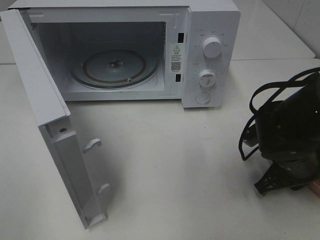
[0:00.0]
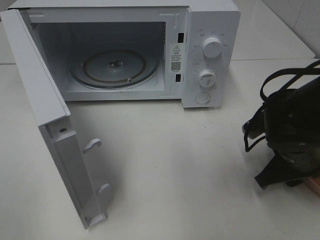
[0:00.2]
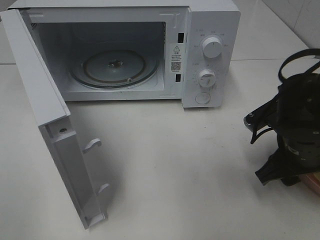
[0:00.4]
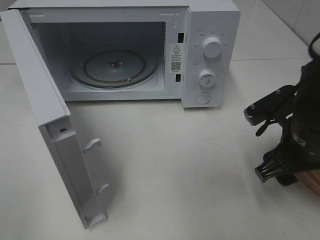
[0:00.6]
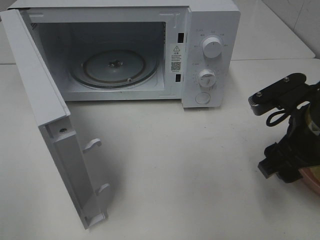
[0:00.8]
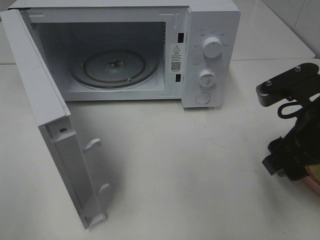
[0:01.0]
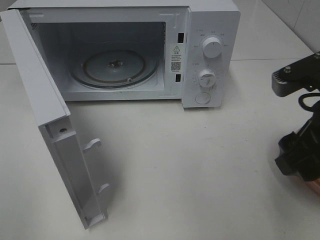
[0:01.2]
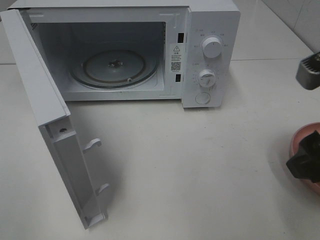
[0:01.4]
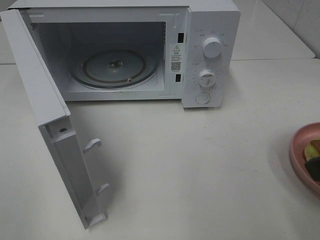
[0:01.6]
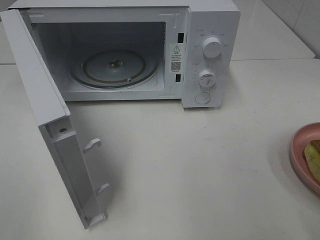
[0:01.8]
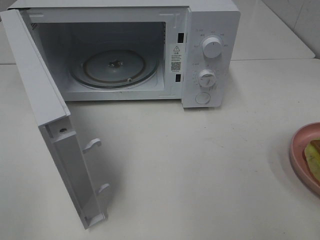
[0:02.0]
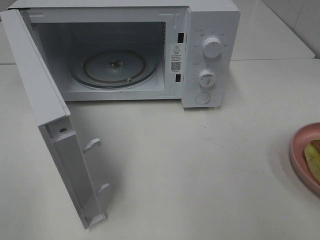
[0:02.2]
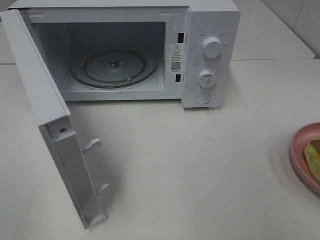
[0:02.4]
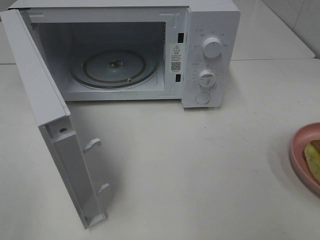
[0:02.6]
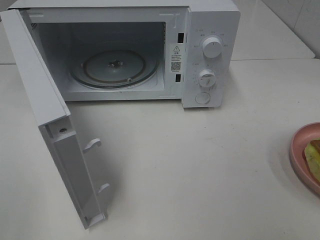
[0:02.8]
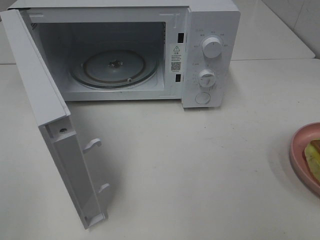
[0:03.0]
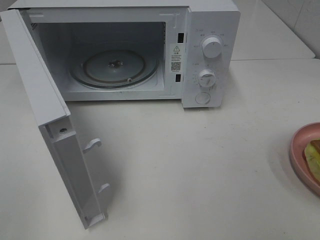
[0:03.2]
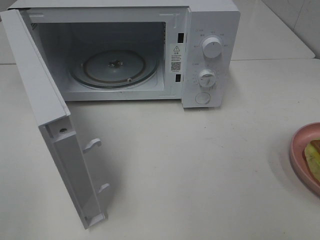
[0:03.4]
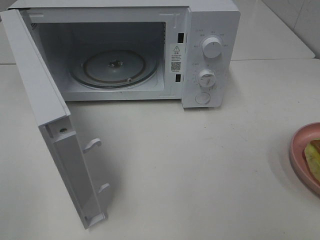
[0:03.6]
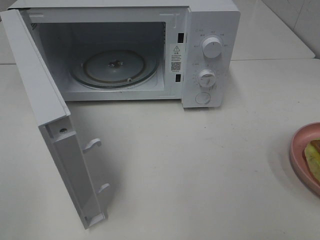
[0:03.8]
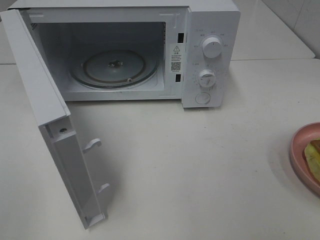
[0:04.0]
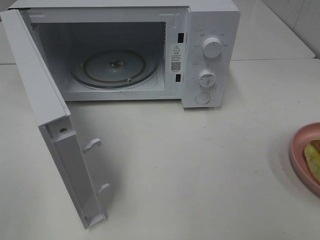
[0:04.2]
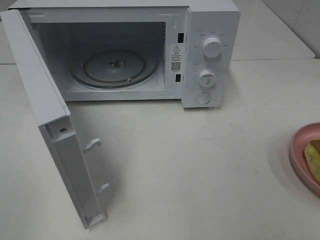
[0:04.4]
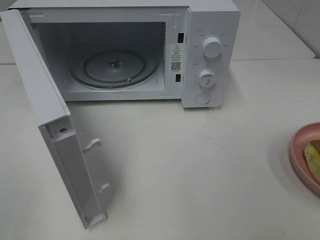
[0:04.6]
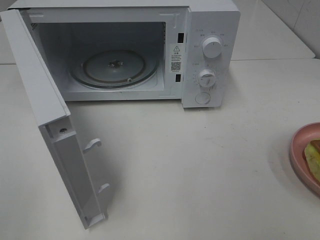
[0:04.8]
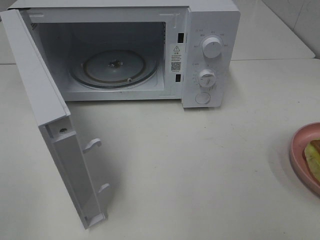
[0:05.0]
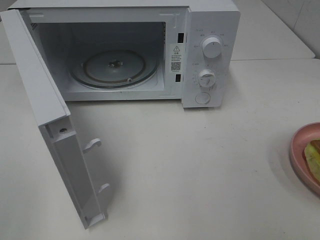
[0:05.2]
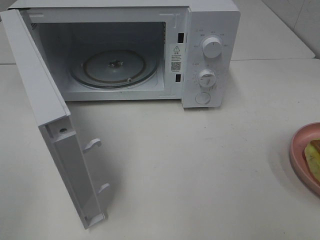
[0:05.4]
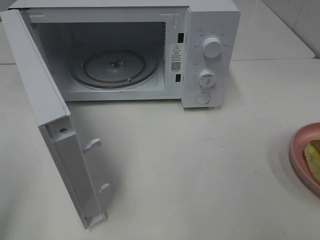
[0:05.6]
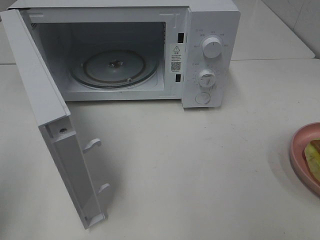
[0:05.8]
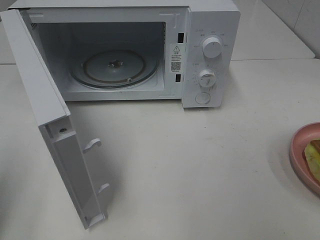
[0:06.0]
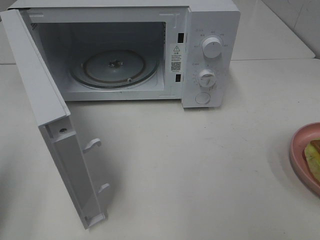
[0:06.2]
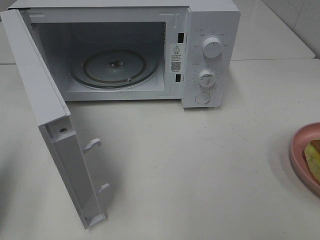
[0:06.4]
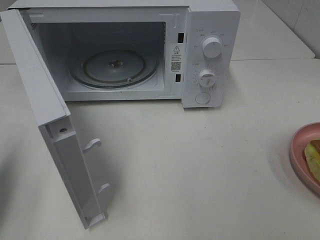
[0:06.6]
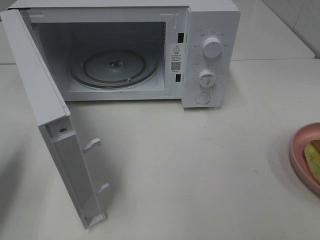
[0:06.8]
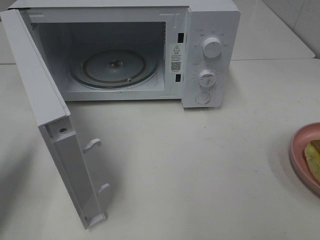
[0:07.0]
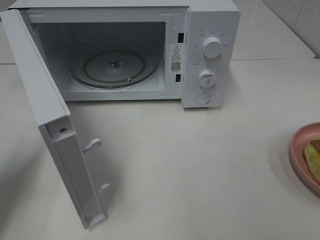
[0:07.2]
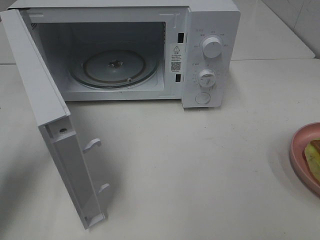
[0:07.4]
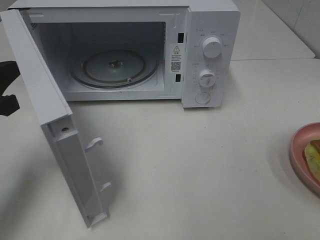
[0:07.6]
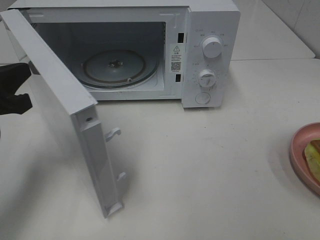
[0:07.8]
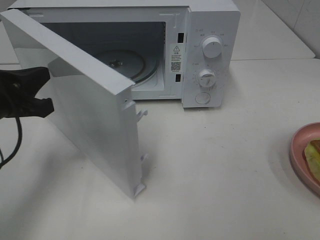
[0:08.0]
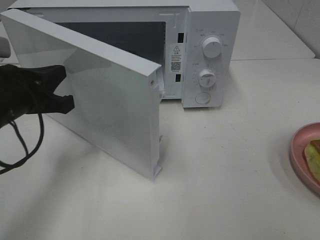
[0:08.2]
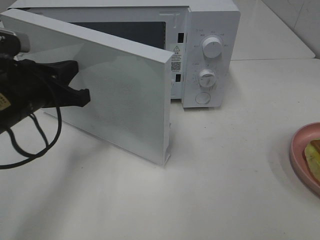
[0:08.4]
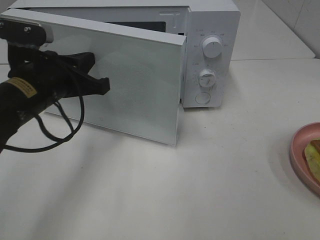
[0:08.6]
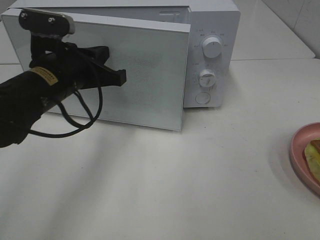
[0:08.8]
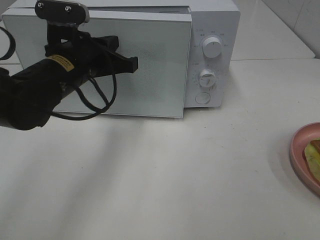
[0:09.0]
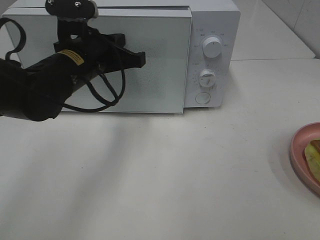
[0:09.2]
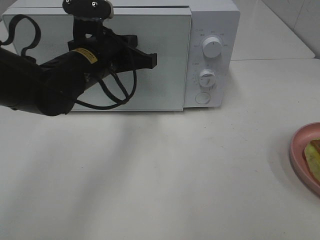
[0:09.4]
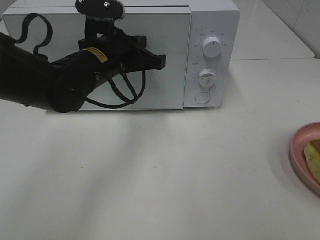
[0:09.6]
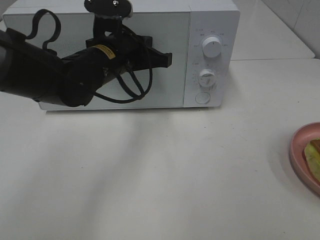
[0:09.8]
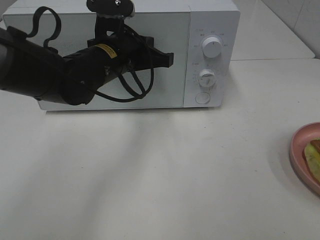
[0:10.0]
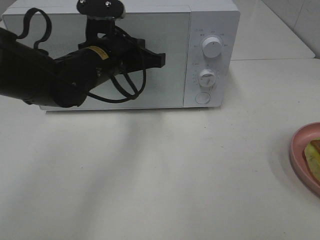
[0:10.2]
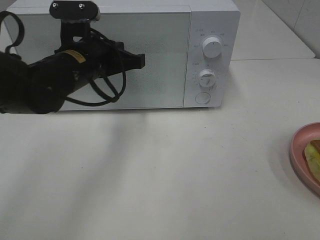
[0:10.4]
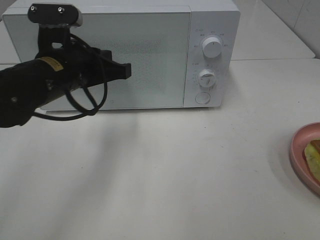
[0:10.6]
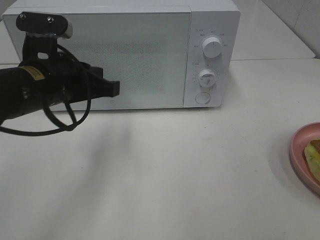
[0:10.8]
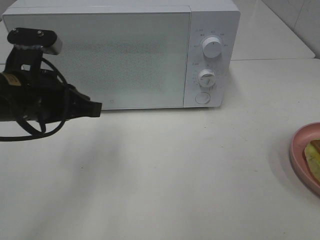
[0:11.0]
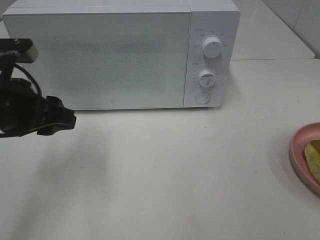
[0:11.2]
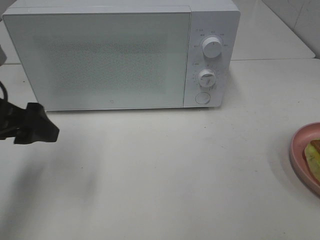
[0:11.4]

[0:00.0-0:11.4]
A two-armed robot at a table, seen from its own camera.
Task of the whole recording: Heat Sandwich.
Step, 0:01.6 to 0:10.4: Left hand: close the microwave door.
0:00.0 to 0:01.4: The right gripper goes roughly 20 cm upward and backward, and opens its fingers.
0:01.4 to 0:02.8: The right gripper travels backward and to the right by about 15 cm.
0:05.6 to 0:07.2: The left gripper shifts about 20 cm forward and downward, and closes up.
0:07.2 to 0:08.6: The left gripper heads to the right and forward, covering some 15 cm.
0:08.6 to 0:10.0: The left gripper shifts approximately 10 cm to the right and forward.
0:10.0 to 0:11.4: The left gripper heads to the left and backward, covering about 20 cm, and opens.

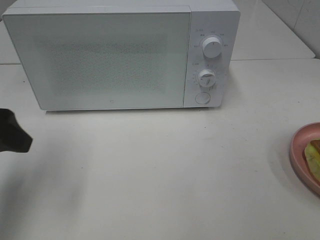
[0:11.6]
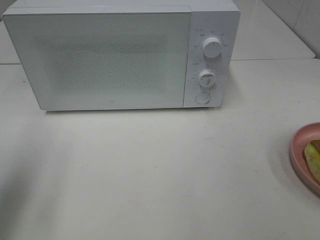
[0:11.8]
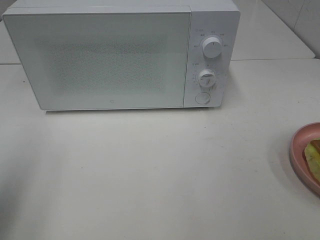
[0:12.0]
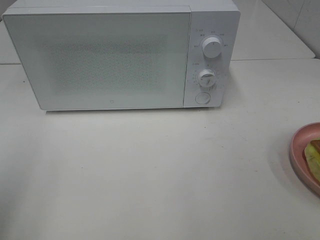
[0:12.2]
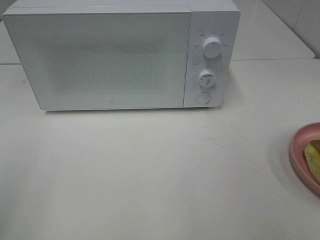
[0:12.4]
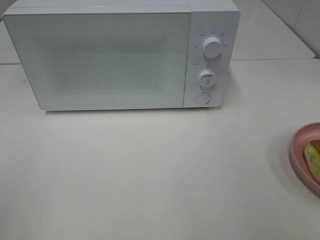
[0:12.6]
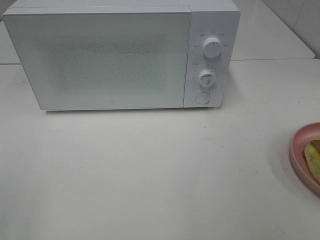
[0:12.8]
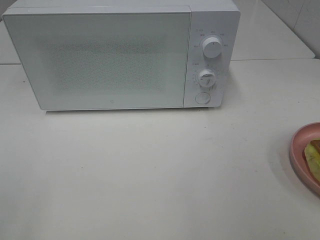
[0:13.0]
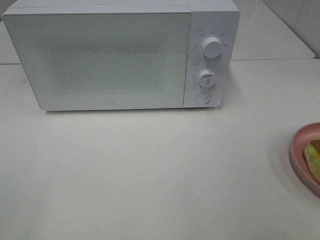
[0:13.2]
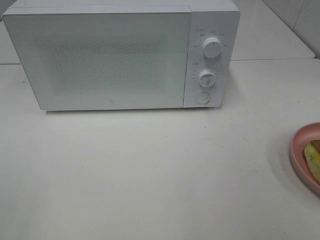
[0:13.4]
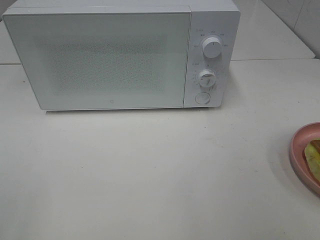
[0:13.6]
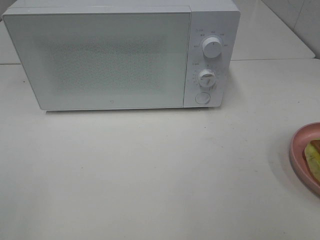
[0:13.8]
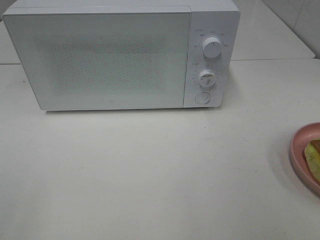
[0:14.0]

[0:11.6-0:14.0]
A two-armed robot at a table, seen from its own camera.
Task of the whole recording: Heat Sandwich.
0:11.6 to 0:12.8: The left gripper moves backward, roughly 20 cm.

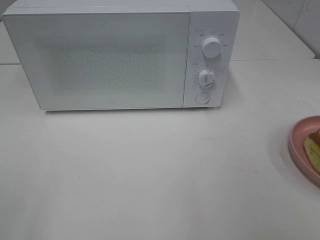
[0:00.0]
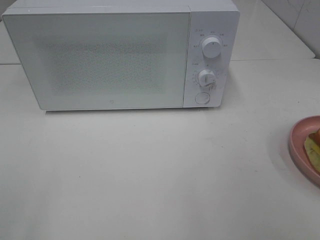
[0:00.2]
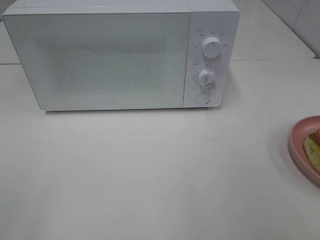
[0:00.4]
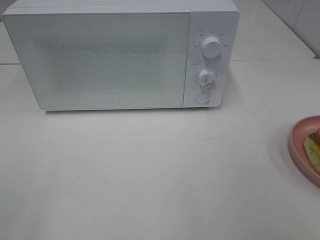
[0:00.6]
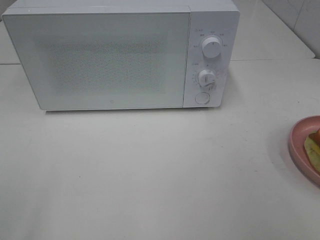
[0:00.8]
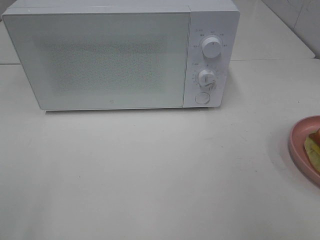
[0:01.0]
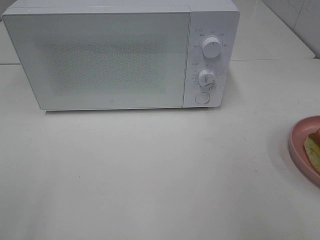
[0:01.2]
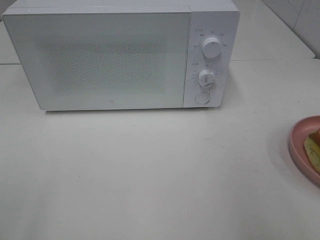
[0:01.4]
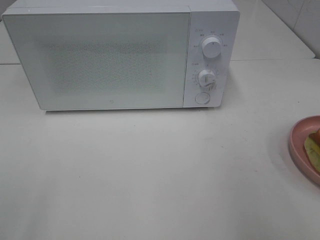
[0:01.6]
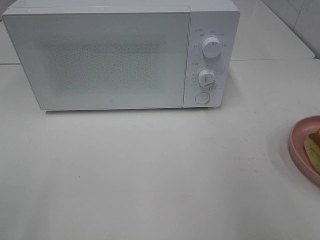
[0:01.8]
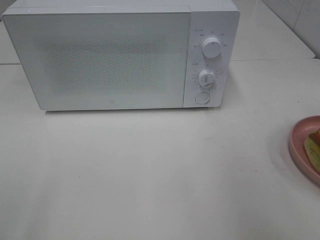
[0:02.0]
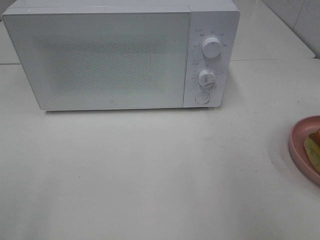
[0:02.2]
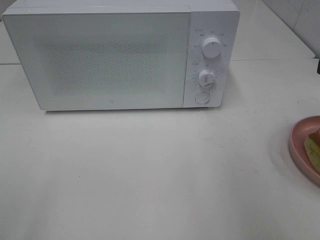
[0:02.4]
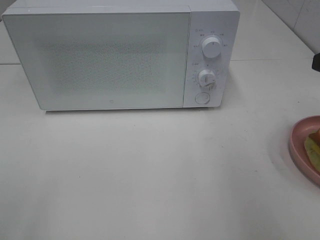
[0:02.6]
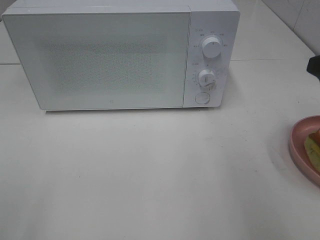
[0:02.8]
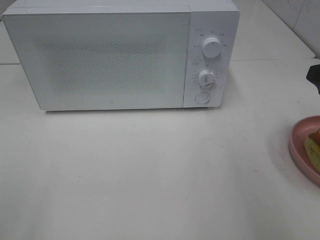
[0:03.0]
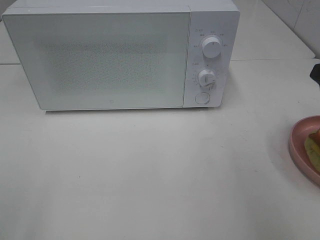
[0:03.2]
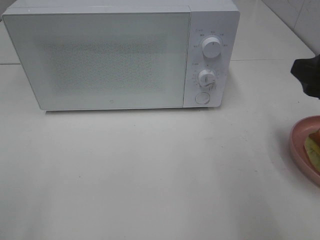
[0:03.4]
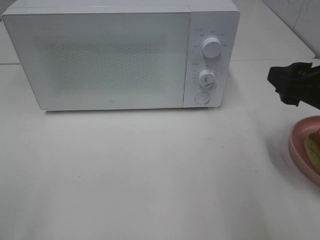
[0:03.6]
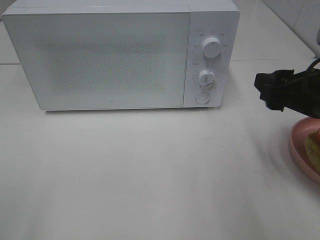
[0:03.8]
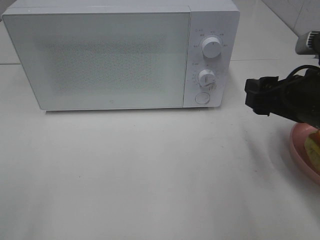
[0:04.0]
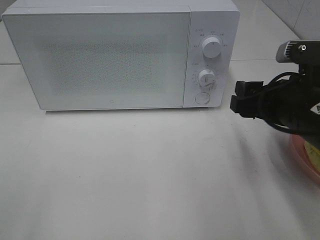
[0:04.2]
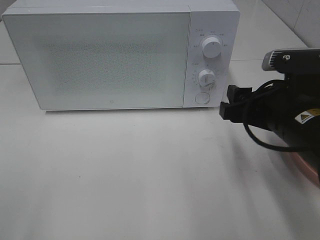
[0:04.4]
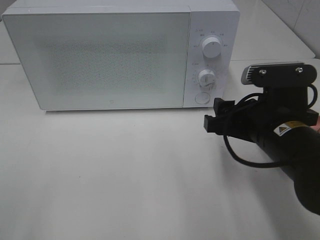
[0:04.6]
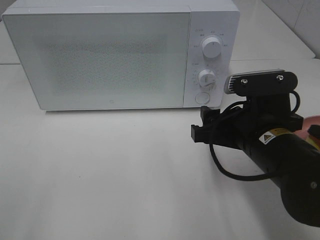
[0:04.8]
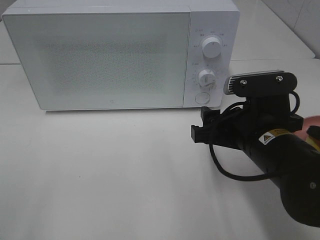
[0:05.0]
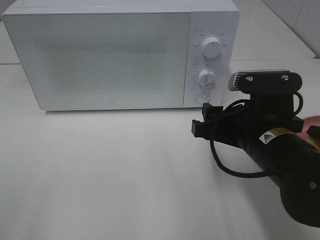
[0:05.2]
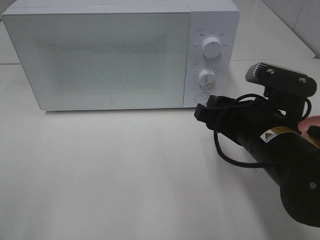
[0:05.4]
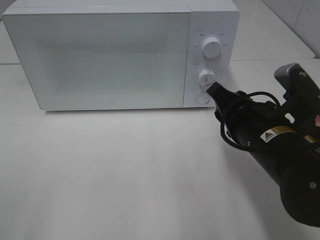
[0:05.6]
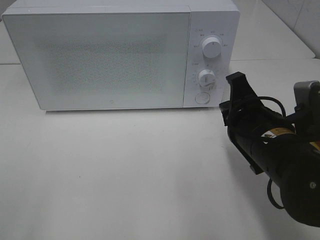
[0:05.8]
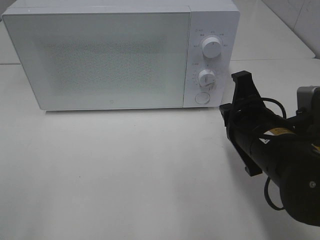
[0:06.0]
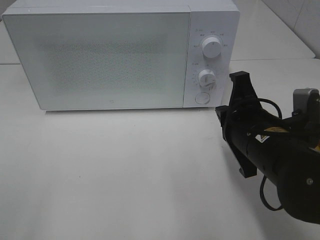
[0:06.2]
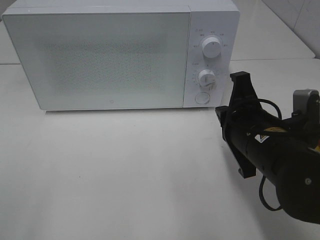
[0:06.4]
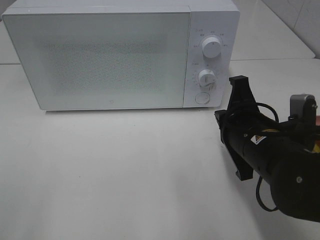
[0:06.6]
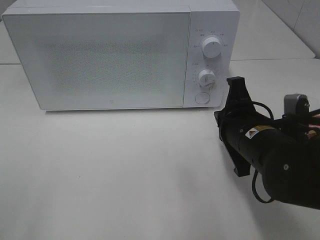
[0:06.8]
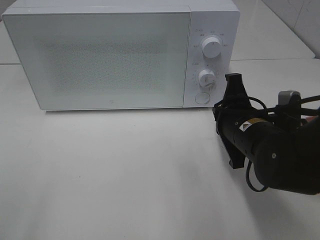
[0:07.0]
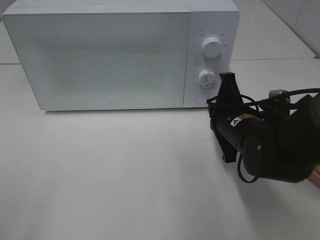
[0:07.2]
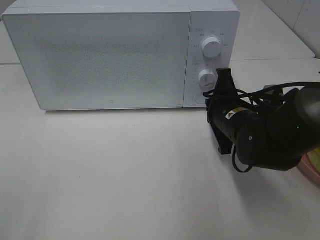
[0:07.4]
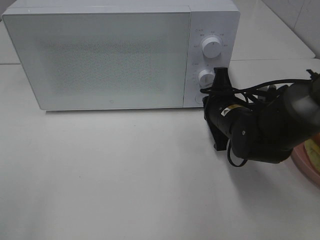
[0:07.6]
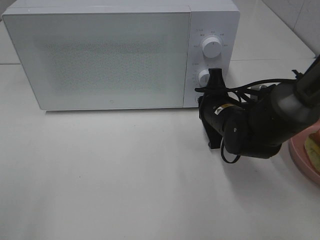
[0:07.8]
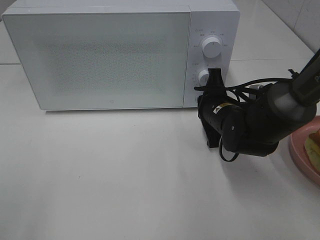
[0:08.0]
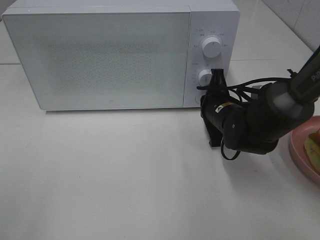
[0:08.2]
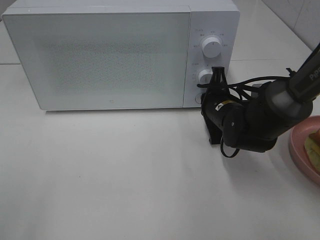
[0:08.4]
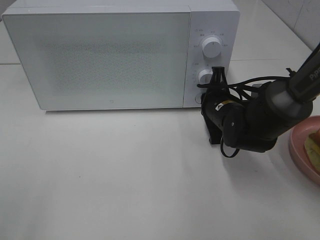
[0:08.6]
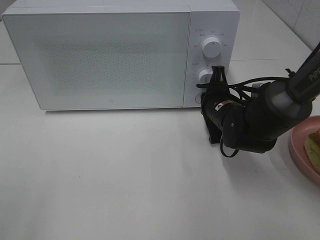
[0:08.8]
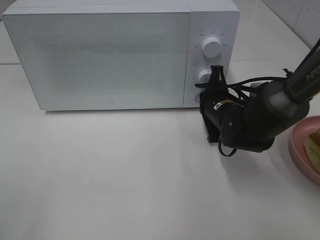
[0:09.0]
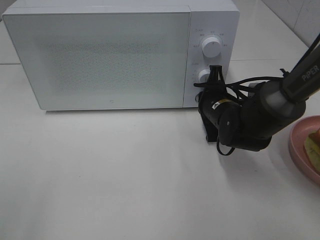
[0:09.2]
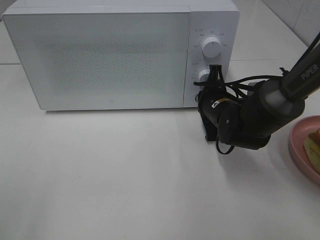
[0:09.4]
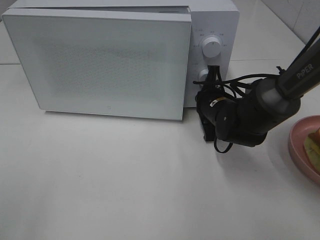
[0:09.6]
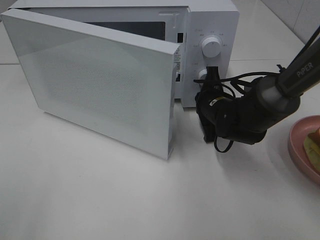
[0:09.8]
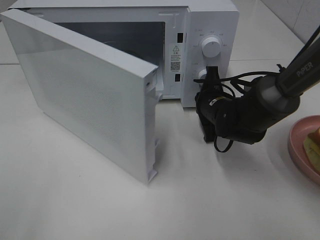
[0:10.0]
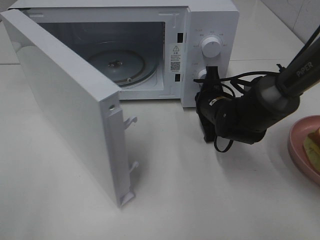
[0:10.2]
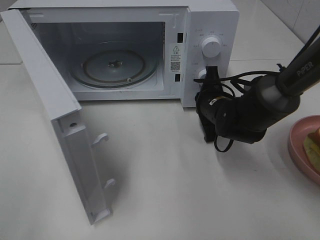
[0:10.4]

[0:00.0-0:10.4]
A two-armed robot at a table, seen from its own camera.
Task of the whole recording: Heat Sandwich.
0:03.0 to 0:04.4: The right gripper goes some 10 cm to the left and downward.
0:04.4 to 0:06.0: The right gripper closes.
0:06.0 to 0:07.4: The right gripper goes approximately 10 cm forward.
0:07.4 to 0:09.0: The right gripper goes about 5 cm forward.
